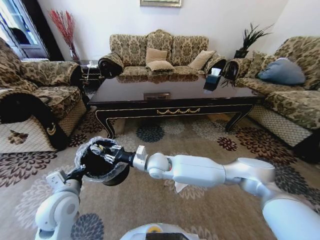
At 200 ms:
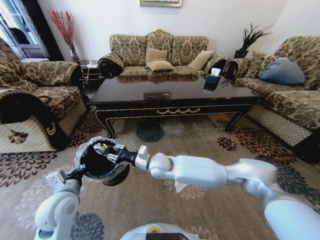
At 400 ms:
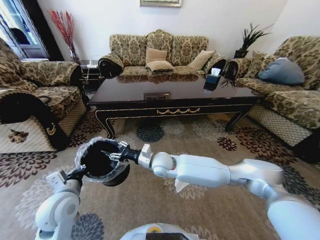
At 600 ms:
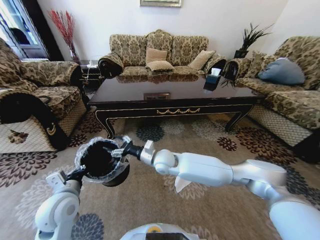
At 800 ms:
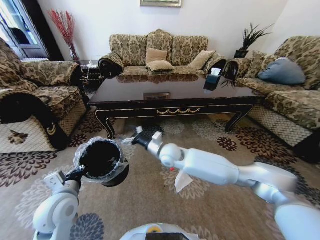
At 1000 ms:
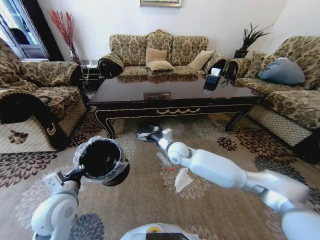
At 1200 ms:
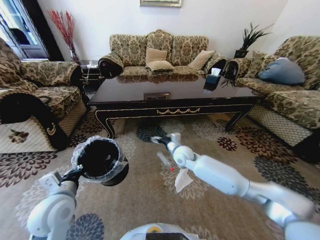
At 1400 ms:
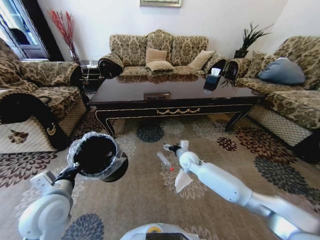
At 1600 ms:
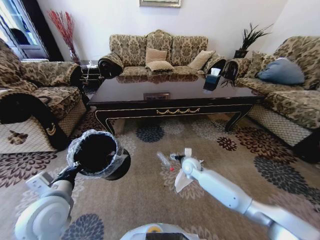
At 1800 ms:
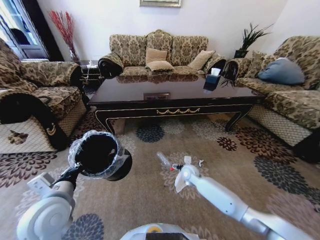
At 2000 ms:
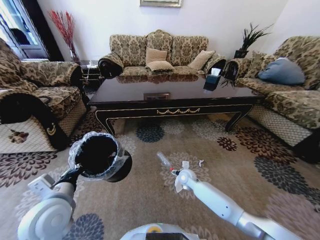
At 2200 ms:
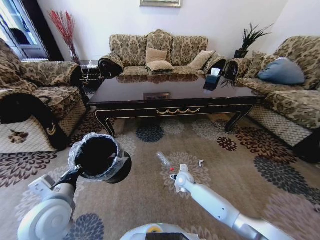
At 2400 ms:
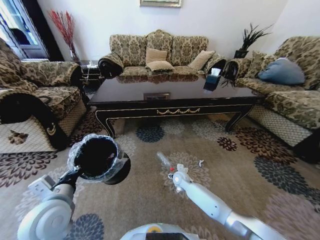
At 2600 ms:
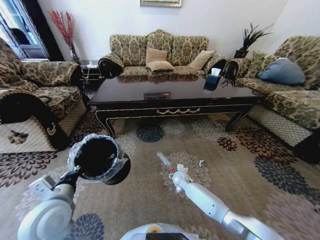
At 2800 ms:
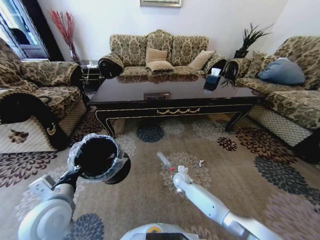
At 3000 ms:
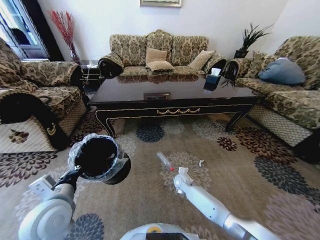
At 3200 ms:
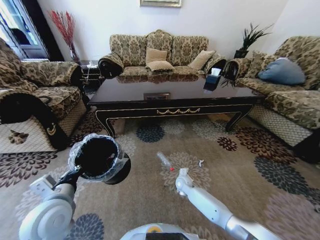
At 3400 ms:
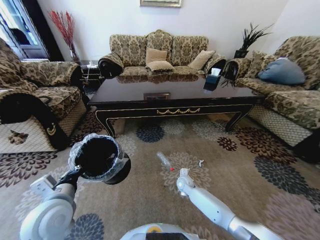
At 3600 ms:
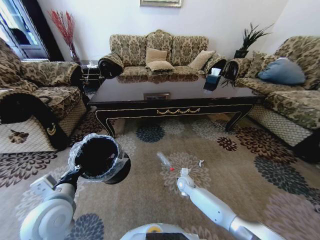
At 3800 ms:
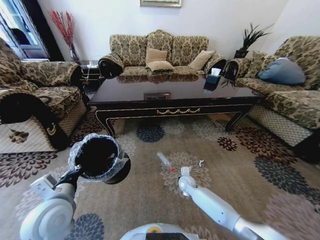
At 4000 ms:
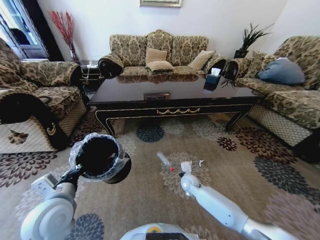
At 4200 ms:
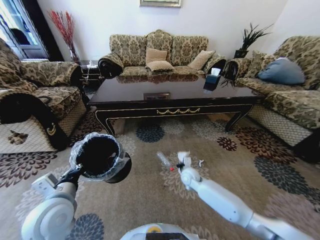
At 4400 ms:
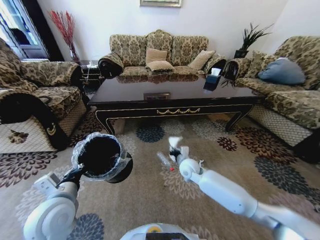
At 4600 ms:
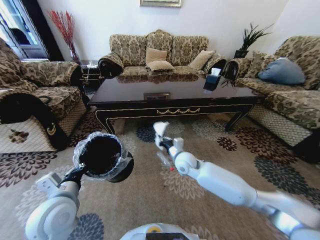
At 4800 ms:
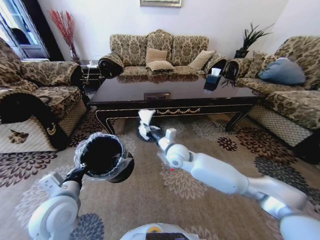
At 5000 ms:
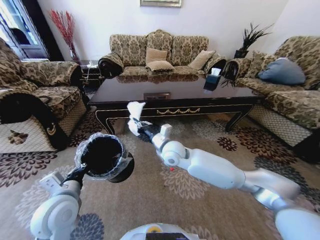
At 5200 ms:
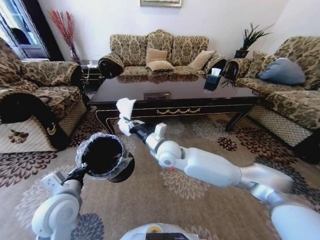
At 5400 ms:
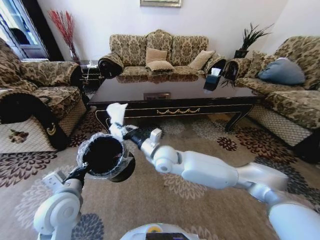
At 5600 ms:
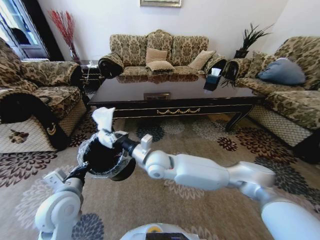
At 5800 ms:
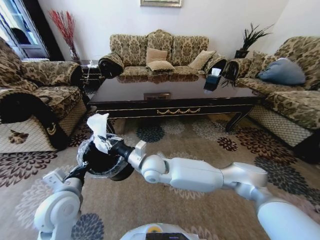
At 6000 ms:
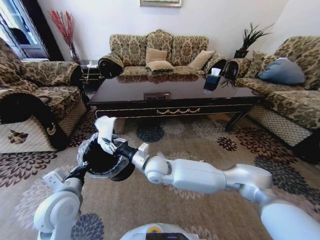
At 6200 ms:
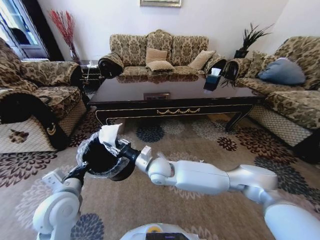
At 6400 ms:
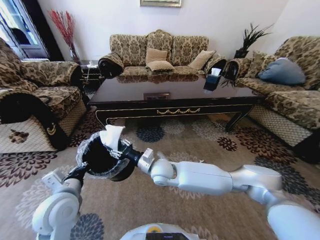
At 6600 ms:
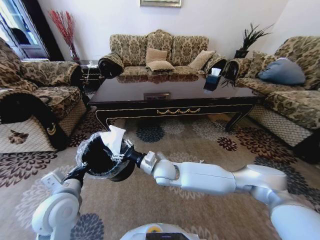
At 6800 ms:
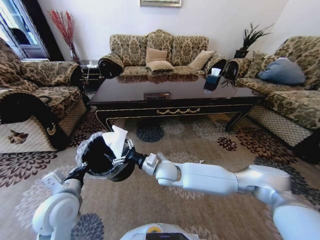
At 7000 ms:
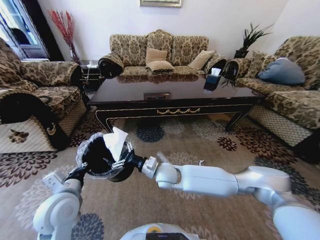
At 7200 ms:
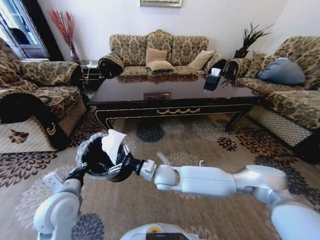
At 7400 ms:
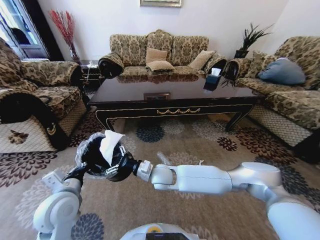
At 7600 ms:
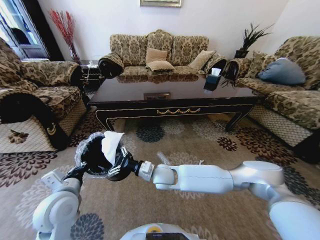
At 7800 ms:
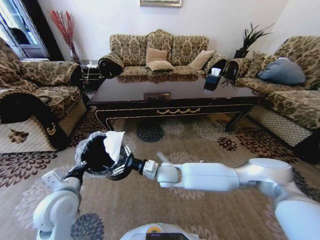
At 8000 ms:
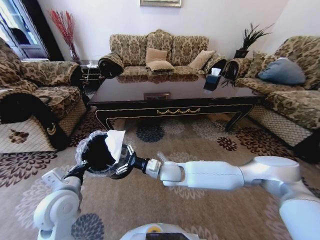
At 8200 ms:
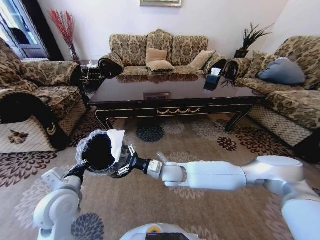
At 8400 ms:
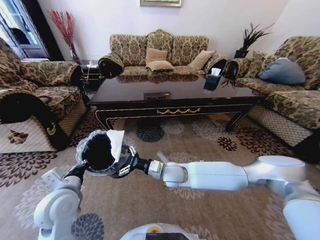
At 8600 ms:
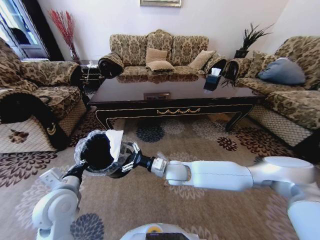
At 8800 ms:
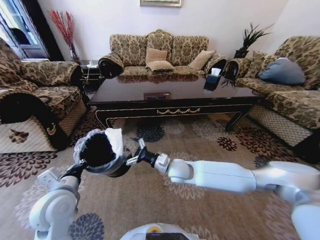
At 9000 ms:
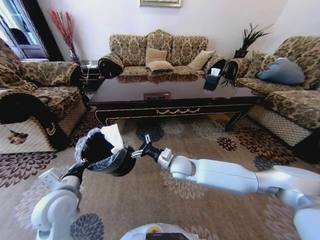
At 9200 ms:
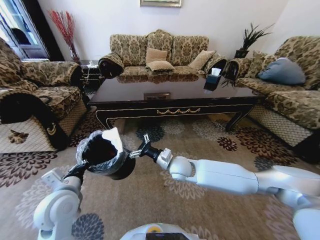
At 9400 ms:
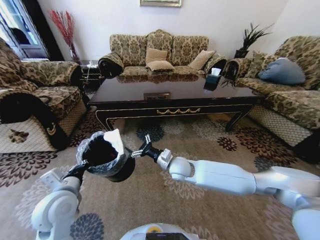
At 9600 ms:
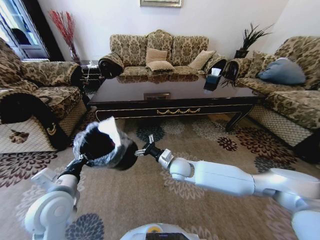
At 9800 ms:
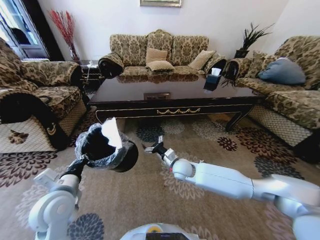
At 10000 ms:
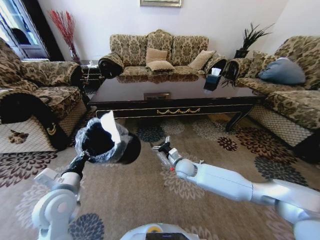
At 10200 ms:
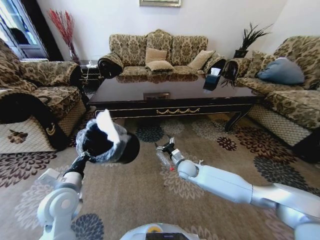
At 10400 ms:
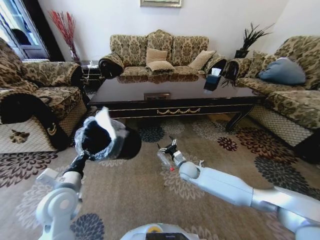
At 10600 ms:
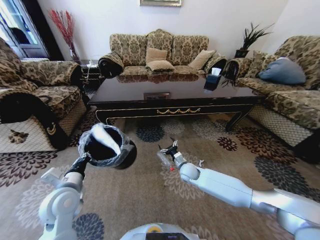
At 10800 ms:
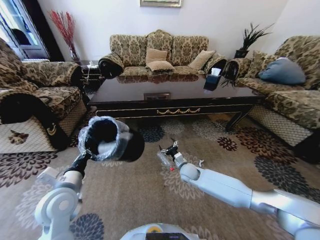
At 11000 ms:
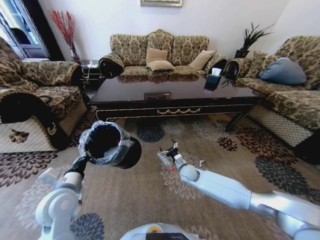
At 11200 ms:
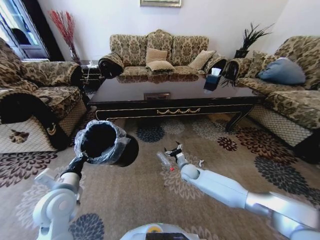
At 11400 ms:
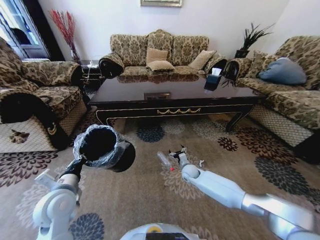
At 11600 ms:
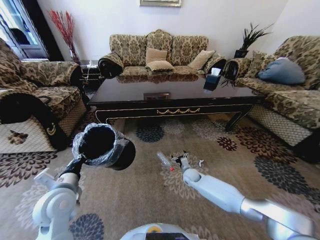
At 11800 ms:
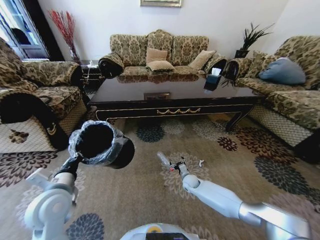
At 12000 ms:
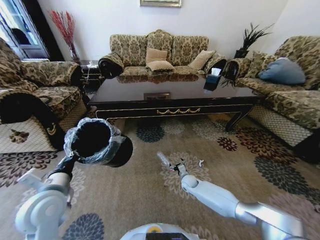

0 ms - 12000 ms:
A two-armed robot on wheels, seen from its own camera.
Task of the whole recording: Move to the front of the table and pick up the trash from the floor, then place it into the trash bin.
0 ms - 1600 ms: The right gripper moves to the right and downward, some 20 cm, and opens.
1600 ms - 3000 ms: The right gripper travels downward by some 15 cm.
3000 ms - 4400 ms: The right gripper shifts about 15 cm upward, and closes.
4400 ms - 6000 ms: The right gripper is displaced to the left and upward by roughly 20 cm.
6000 ms - 7600 ms: The right gripper moves some 5 cm, and opens up.
7600 ms - 9000 ms: The right gripper heads to the right, covering some 10 cm.
9000 ms - 10400 ms: The right gripper shifts some 15 cm downward and to the right.
10400 ms - 12000 ms: The right gripper shifts about 15 cm downward.

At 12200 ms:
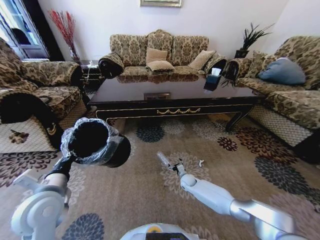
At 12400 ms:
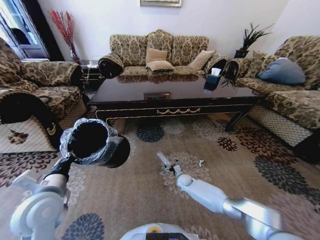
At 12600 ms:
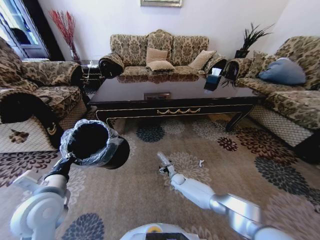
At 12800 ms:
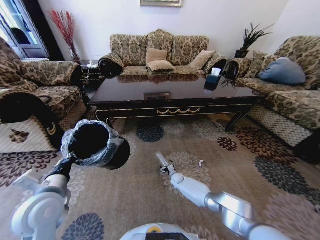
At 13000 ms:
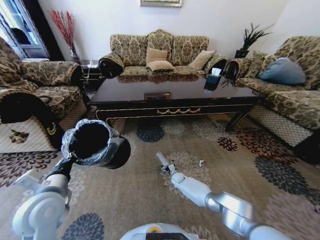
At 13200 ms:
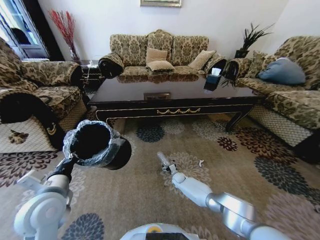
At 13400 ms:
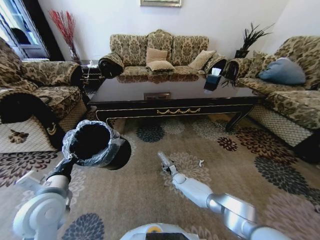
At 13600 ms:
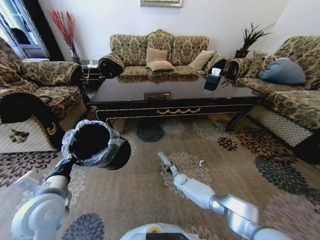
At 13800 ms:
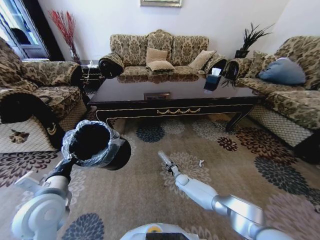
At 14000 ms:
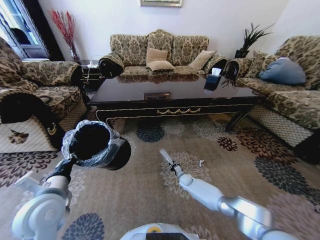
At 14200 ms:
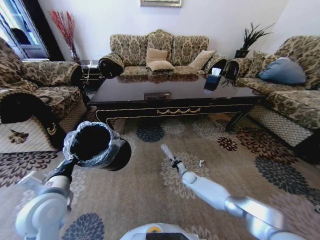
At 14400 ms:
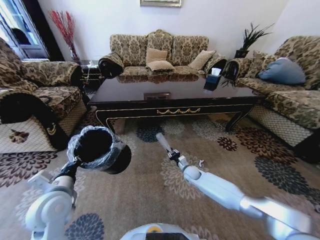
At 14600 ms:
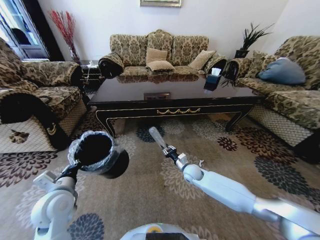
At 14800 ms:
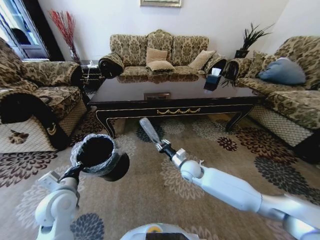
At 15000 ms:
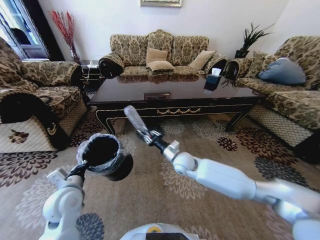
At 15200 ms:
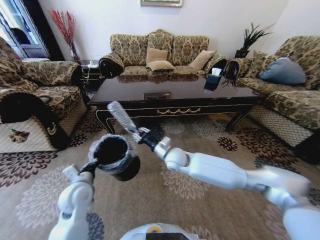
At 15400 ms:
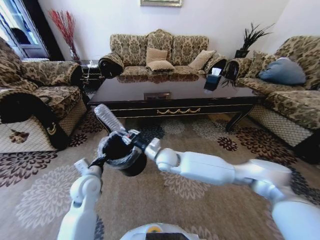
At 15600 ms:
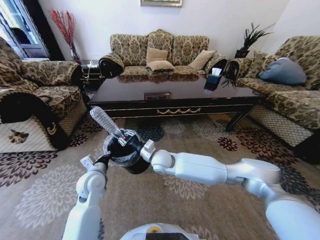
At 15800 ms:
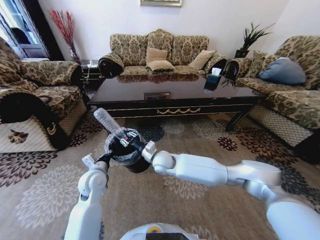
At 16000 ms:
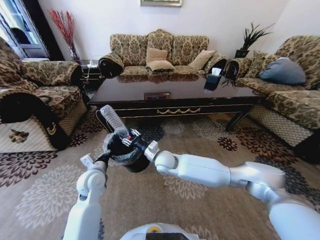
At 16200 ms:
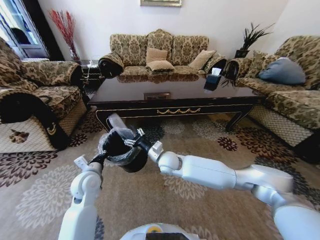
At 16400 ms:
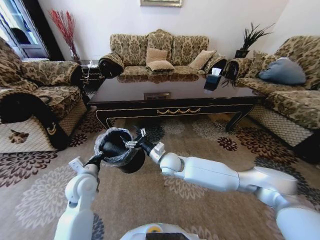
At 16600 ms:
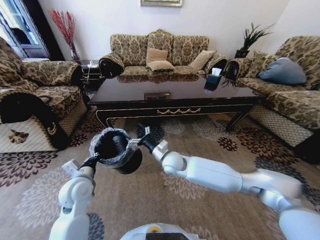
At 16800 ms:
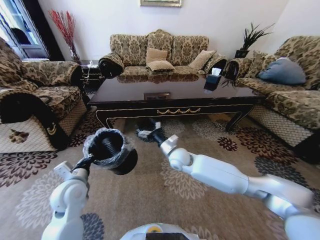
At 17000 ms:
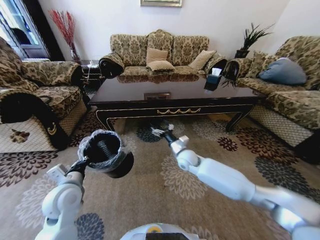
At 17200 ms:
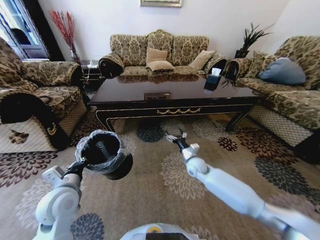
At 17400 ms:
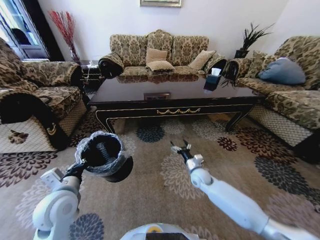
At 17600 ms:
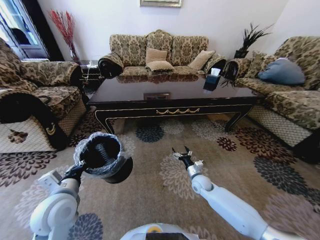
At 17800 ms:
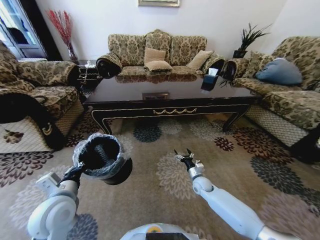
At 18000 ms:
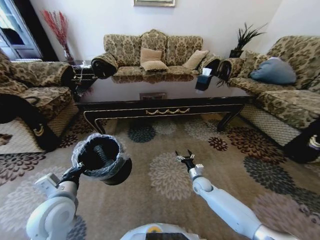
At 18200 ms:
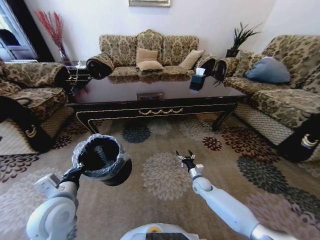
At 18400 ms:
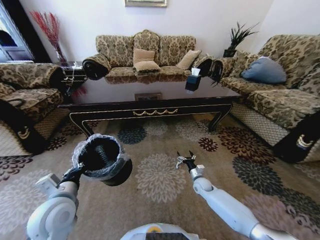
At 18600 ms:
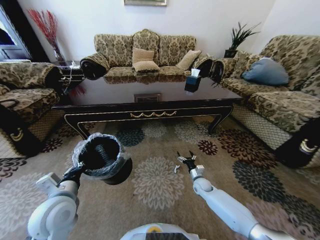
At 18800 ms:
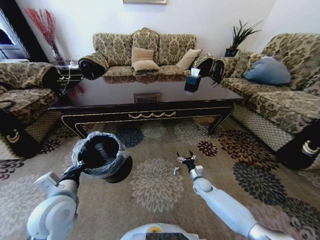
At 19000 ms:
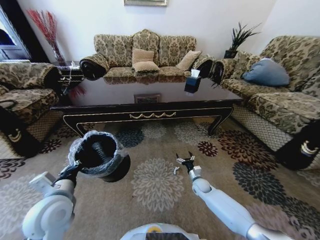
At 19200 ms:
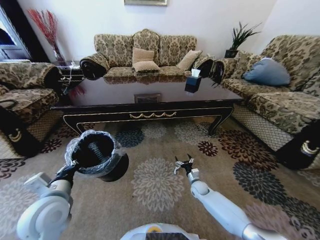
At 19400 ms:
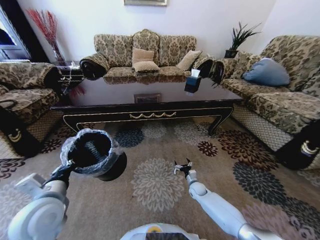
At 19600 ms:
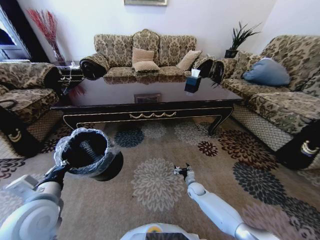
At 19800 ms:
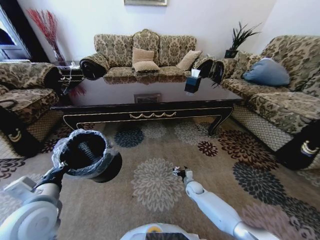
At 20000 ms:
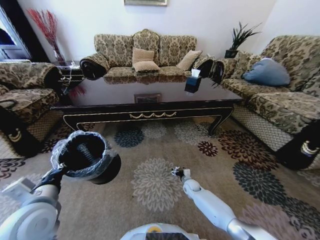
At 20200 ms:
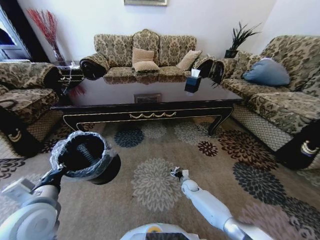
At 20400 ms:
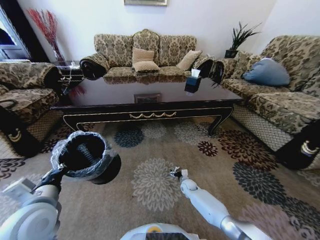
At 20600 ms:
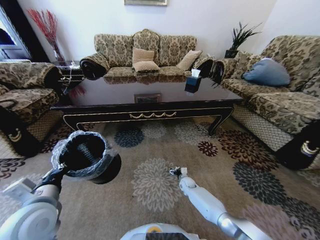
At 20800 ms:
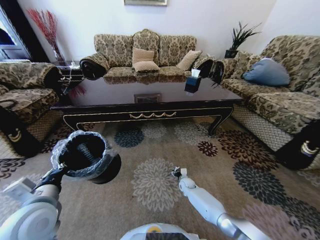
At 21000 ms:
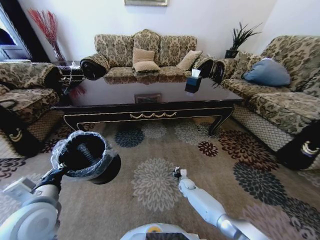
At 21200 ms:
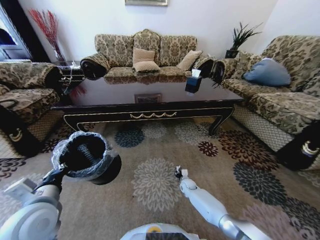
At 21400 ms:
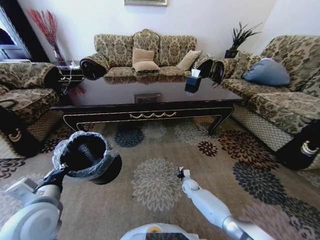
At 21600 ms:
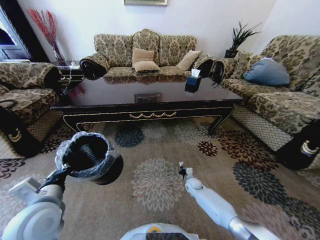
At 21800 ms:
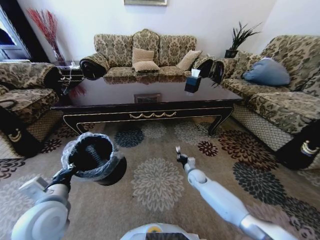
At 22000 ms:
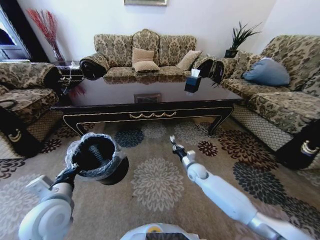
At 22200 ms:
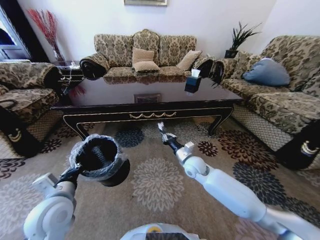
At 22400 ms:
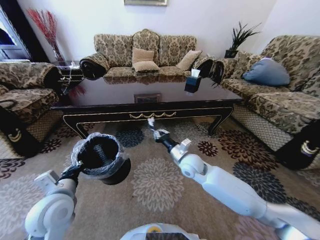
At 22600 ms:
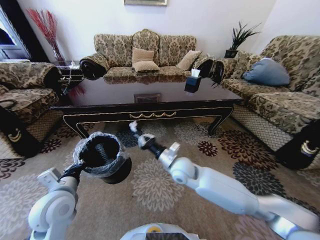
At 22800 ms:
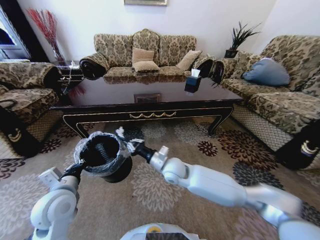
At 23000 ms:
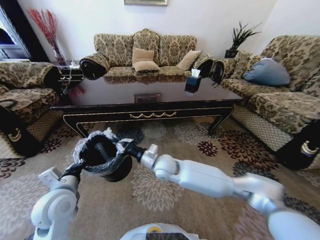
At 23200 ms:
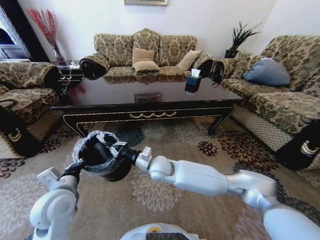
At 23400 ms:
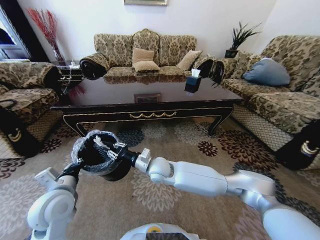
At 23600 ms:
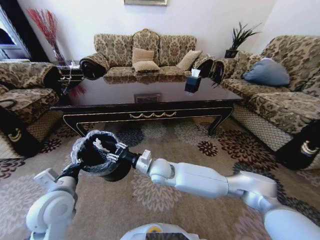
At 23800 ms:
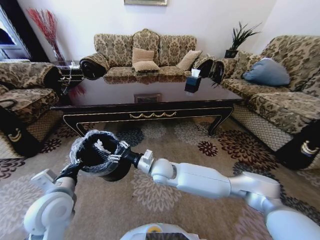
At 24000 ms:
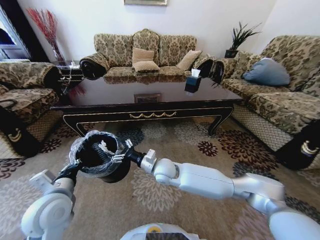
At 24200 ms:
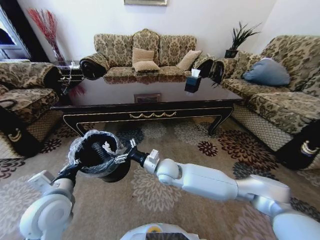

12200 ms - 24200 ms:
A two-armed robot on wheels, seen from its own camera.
Task of the whole recording: Move to the front of the table and pick up the trash from the floor, then place it into the trash bin.
12200 ms - 13800 ms: The right gripper heads downward, covering some 5 cm, and closes its fingers.
13800 ms - 15200 ms: The right gripper moves upward, approximately 30 cm, while the left gripper shifts approximately 10 cm downward and forward.
15200 ms - 16600 ms: The right gripper opens.
16600 ms - 18200 ms: The right gripper heads downward and to the right, covering some 30 cm. Meanwhile the left gripper moves backward, about 10 cm.
18200 ms - 19800 ms: The right gripper heads downward, covering about 5 cm.
19800 ms - 21200 ms: The right gripper closes its fingers.
21200 ms - 22600 ms: The right gripper moves upward, some 30 cm.
22600 ms - 24200 ms: The right gripper travels to the left by some 5 cm, and opens.
